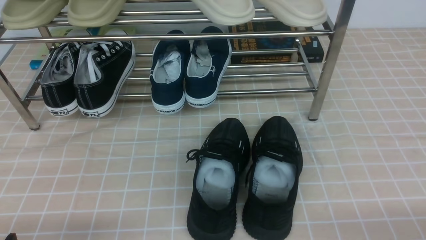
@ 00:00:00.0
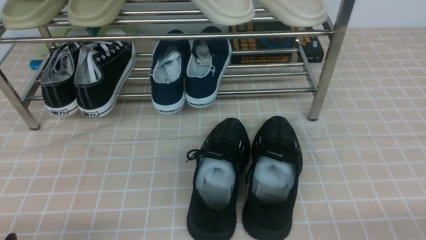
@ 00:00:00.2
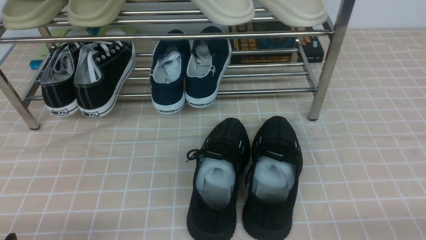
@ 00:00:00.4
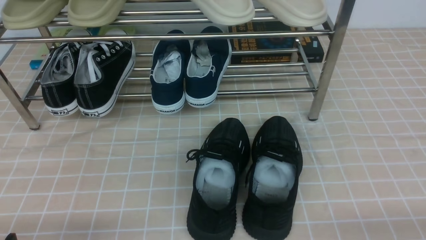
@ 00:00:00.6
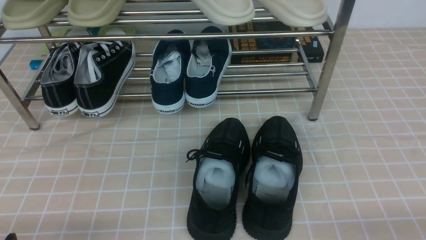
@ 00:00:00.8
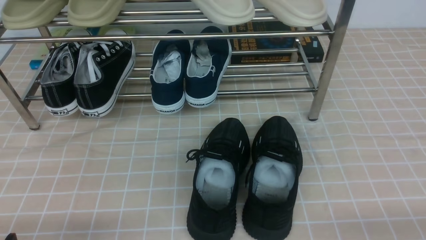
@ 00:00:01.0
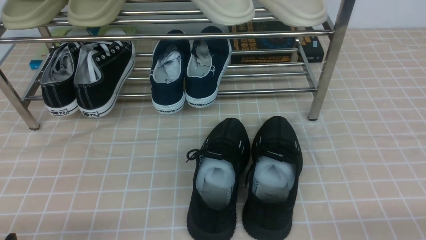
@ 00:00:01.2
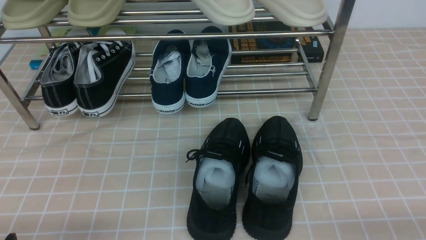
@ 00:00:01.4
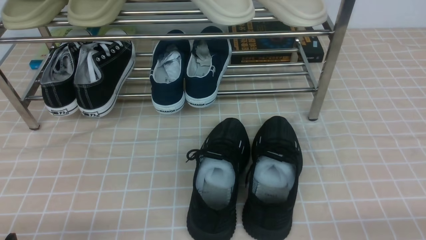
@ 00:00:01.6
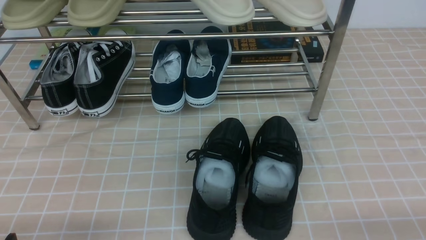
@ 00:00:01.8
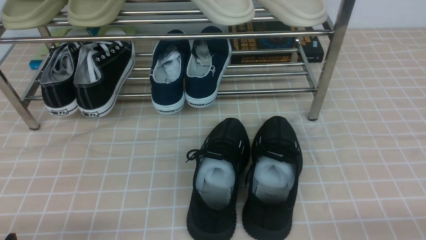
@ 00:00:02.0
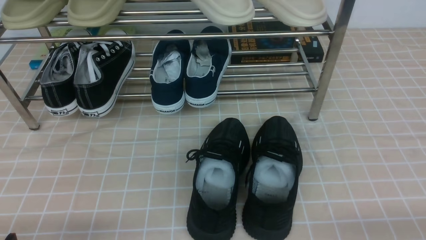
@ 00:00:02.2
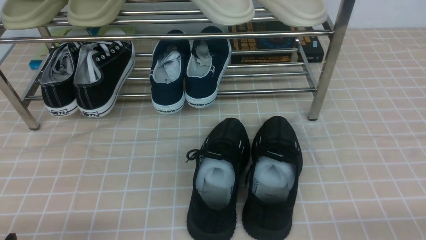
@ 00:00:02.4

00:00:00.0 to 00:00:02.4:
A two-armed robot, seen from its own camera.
00:00:01.2 to 00:00:02.4: The two grippers keep their place.

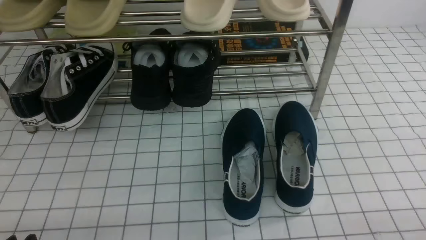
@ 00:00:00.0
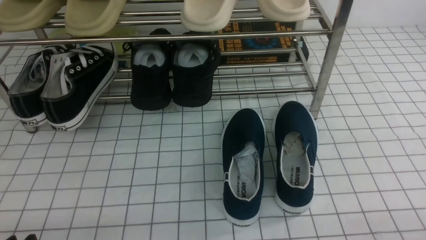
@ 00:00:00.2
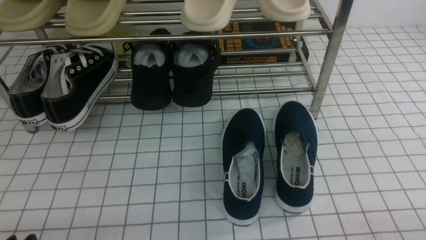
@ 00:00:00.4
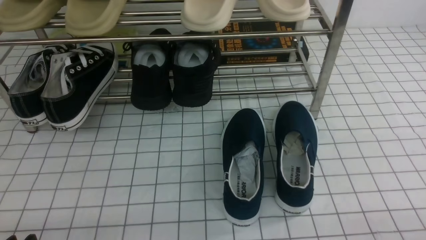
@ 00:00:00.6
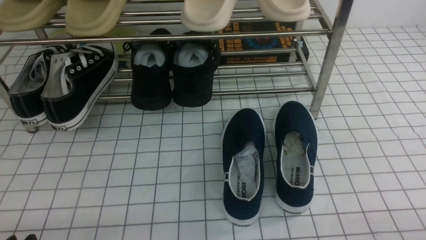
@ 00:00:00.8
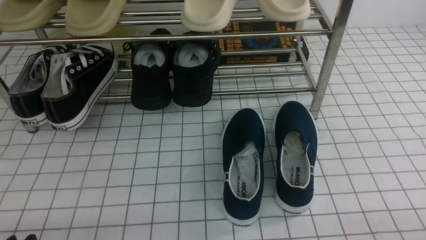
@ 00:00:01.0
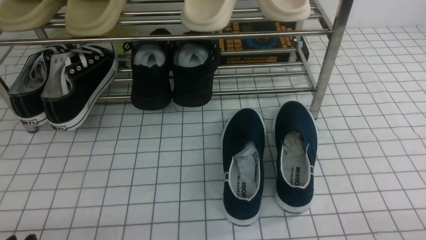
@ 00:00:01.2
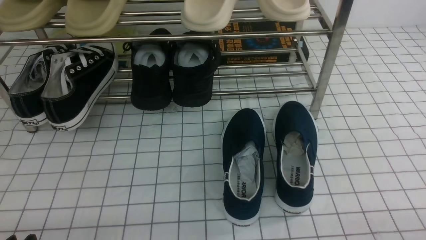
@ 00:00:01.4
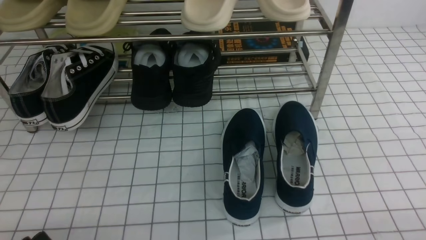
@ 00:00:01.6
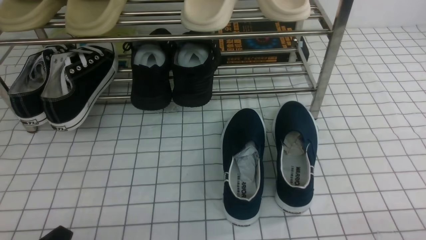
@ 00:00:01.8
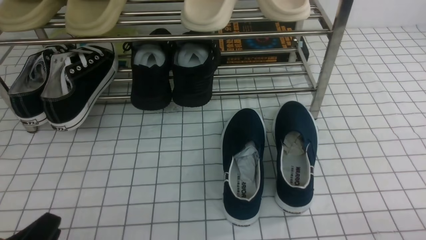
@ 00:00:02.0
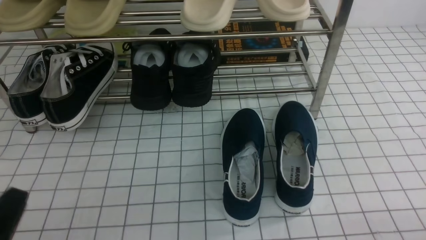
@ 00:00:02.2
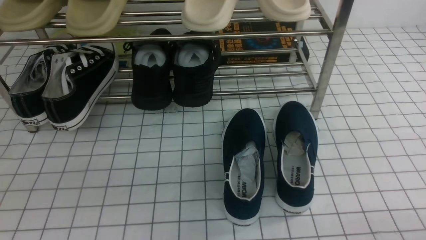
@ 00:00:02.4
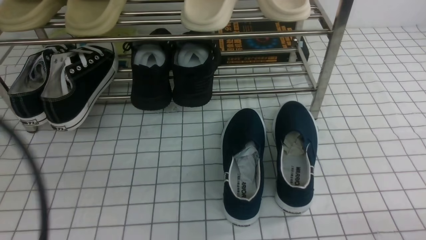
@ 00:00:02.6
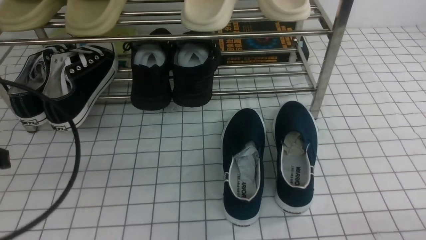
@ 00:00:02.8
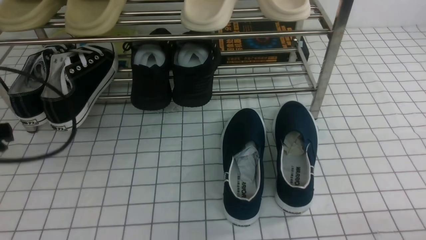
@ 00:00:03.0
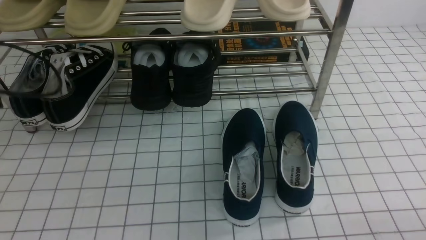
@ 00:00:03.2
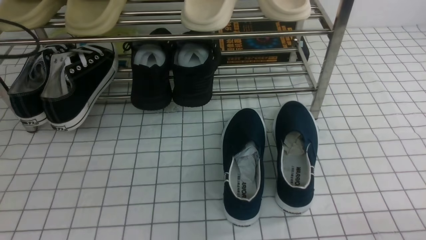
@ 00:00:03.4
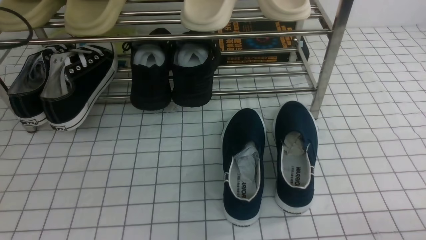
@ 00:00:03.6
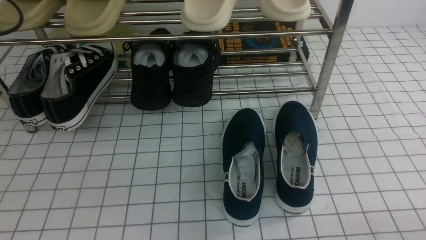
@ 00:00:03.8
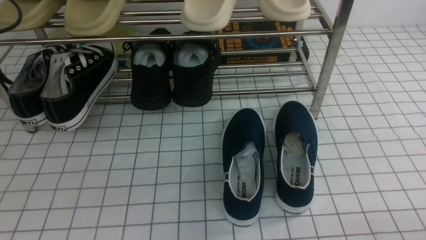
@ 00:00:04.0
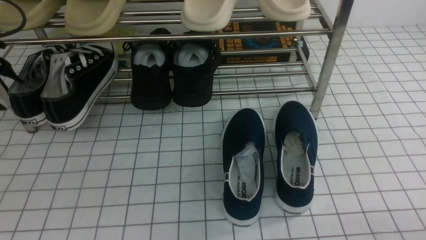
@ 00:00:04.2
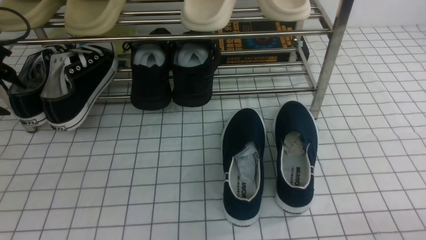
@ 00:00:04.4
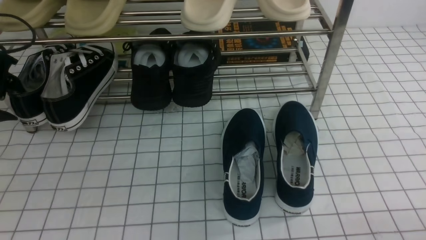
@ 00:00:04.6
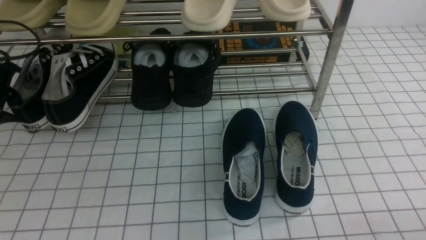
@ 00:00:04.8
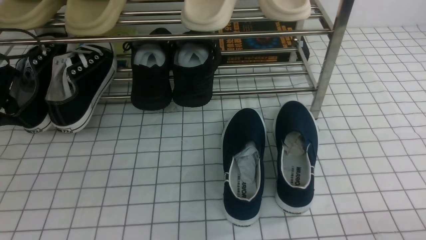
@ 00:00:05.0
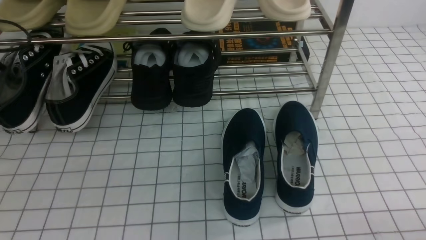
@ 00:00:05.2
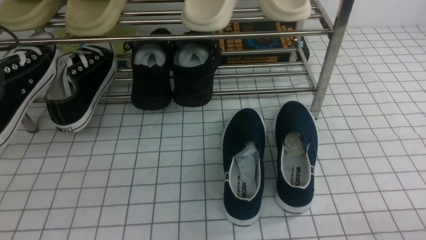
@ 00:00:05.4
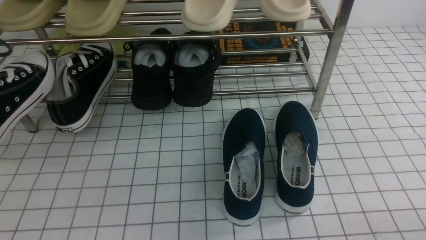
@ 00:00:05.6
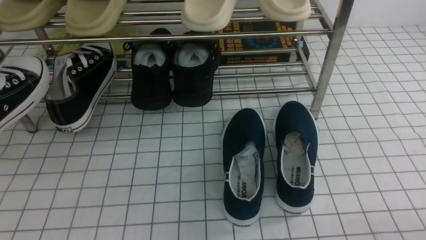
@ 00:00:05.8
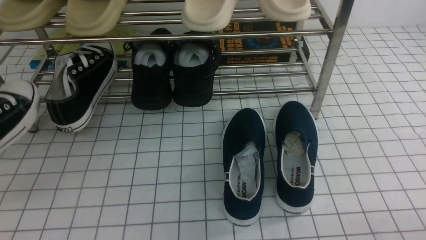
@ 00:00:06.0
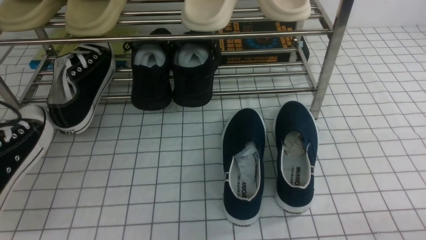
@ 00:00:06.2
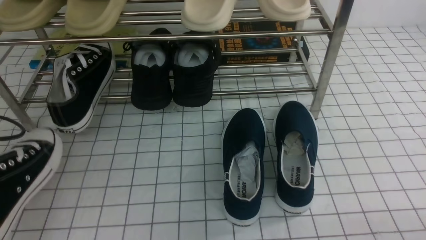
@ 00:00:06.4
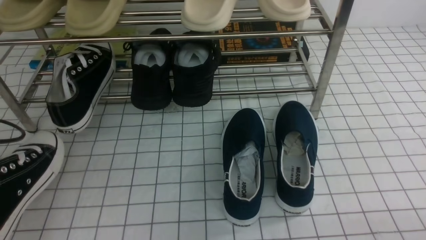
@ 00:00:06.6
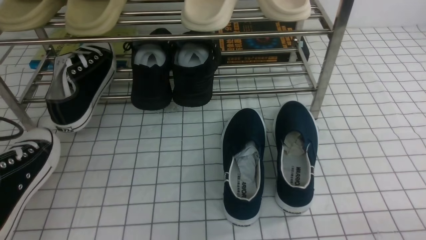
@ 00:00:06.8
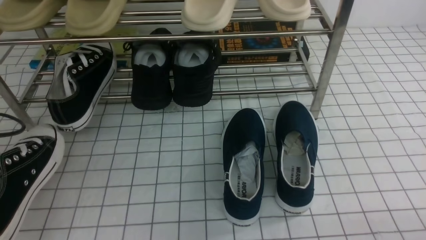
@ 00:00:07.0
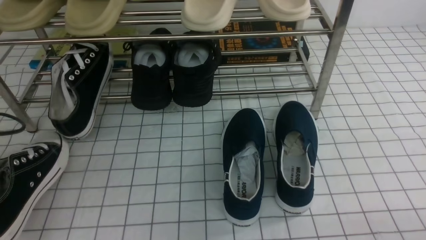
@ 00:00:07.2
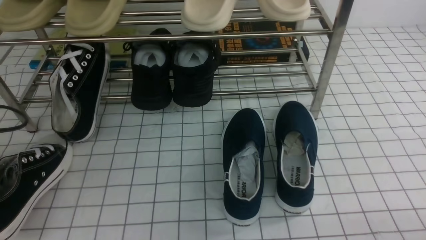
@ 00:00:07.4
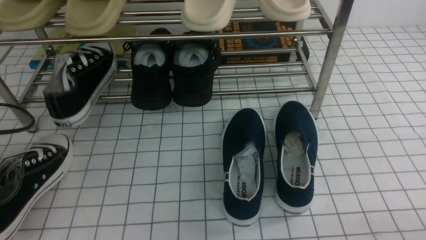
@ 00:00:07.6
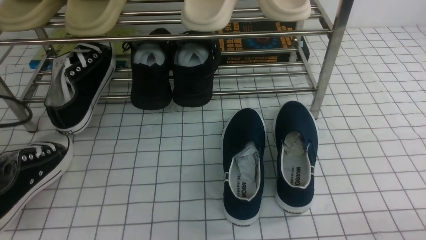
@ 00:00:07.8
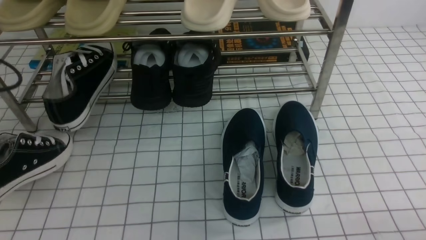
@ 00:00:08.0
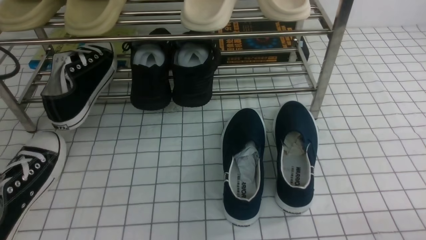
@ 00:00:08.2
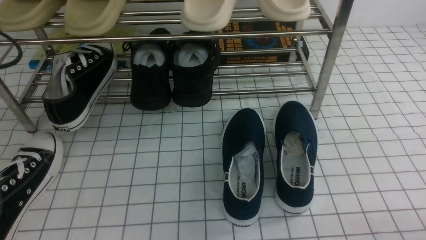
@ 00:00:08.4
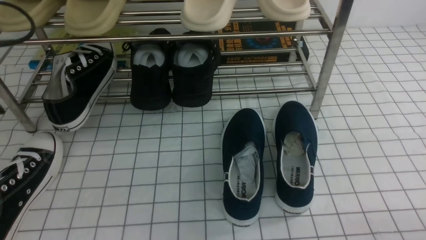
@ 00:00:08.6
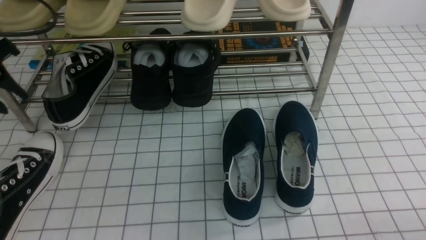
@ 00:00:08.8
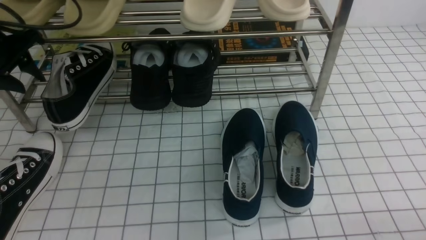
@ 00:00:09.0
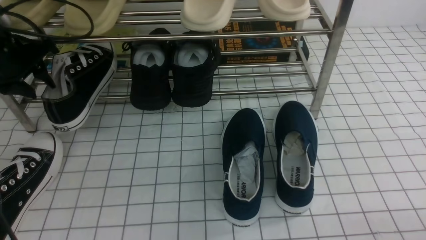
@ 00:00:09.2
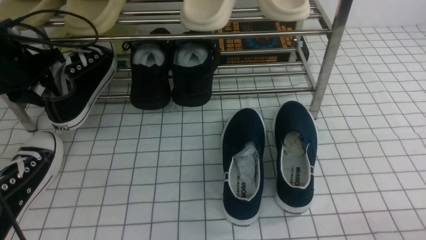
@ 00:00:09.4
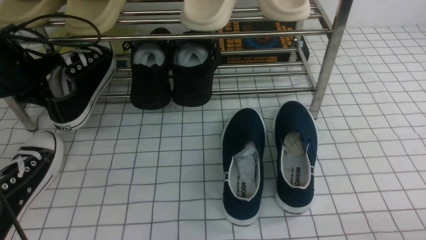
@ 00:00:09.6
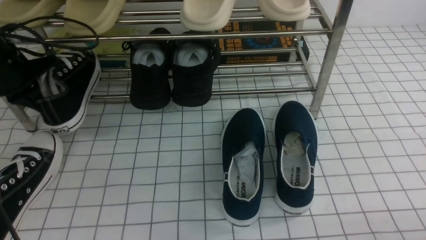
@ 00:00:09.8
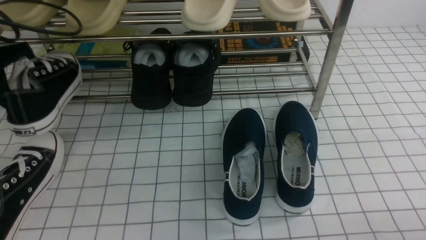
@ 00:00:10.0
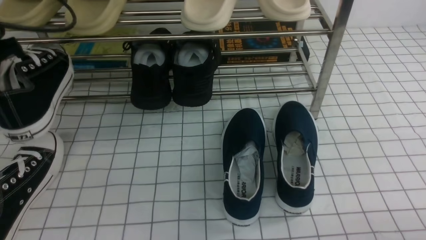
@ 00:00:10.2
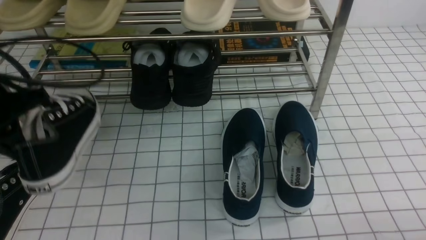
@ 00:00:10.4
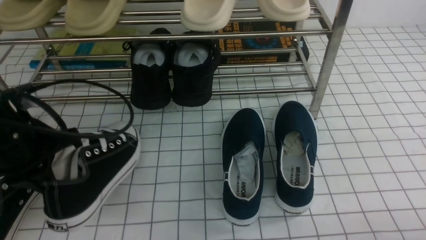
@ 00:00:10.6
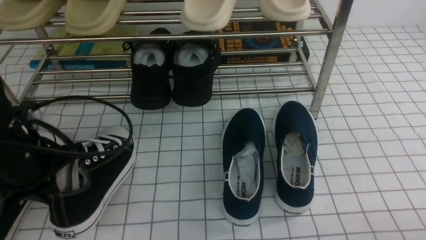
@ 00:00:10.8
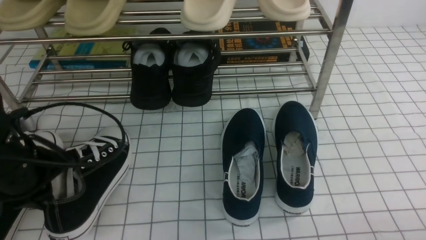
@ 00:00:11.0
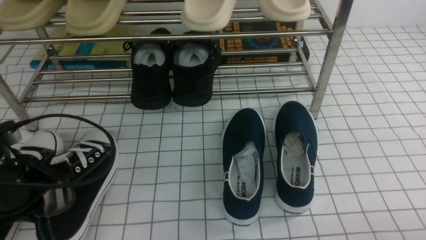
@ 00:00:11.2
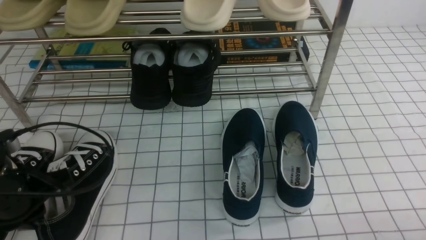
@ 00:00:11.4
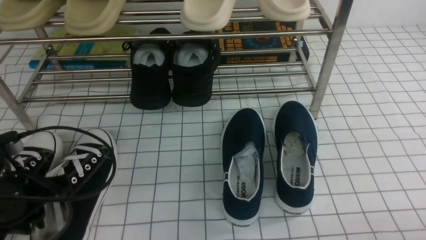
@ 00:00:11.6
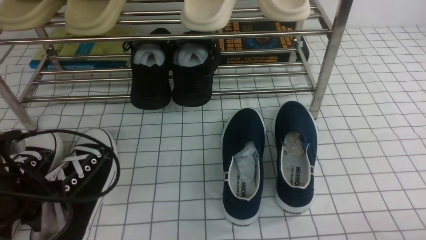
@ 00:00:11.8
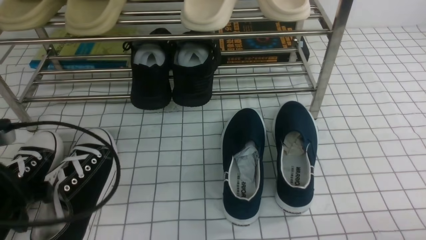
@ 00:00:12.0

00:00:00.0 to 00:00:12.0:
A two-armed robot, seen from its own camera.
Step, 00:00:00.0 to 00:00:04.8: use the left arm to clamp a shoe on the left side of the shoe rack.
Step, 00:00:05.0 to 00:00:08.2: Use your left arm to remove the clamped shoe from the shoe rack and put it down.
Step, 00:00:08.4 to 00:00:09.6: use the left arm to clamp a shoe on the left side of the shoe rack.
00:00:01.6 to 00:00:03.0: The left gripper travels forward and upward by roughly 25 cm, and closes its fingers.
00:00:03.0 to 00:00:04.4: The left gripper shifts about 15 cm forward and to the left, and opens up.
00:00:04.4 to 00:00:06.0: The left gripper is displaced backward by about 15 cm, and closes.
00:00:06.0 to 00:00:07.6: The left gripper is displaced downward by about 5 cm, and opens.
00:00:07.6 to 00:00:09.0: The left gripper shifts about 15 cm forward.
00:00:09.0 to 00:00:10.4: The left gripper moves backward and to the right, roughly 10 cm, and closes up.
00:00:10.4 to 00:00:12.0: The left gripper moves backward, roughly 10 cm, and opens.

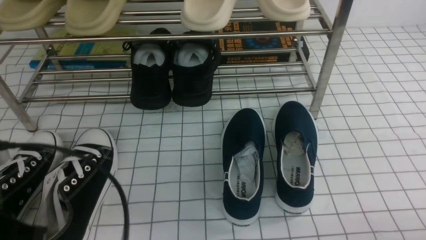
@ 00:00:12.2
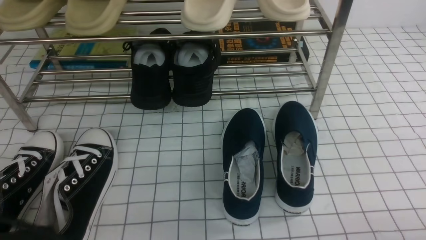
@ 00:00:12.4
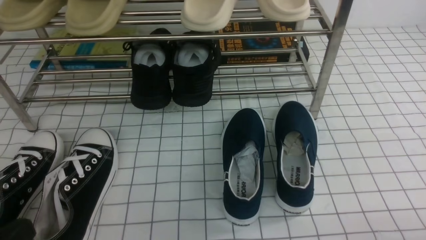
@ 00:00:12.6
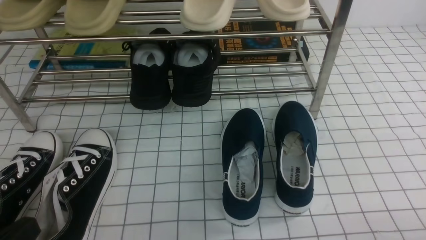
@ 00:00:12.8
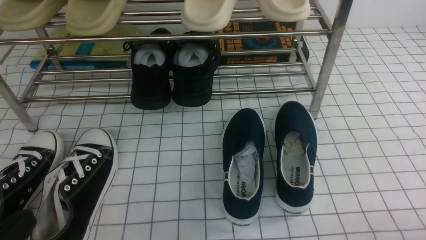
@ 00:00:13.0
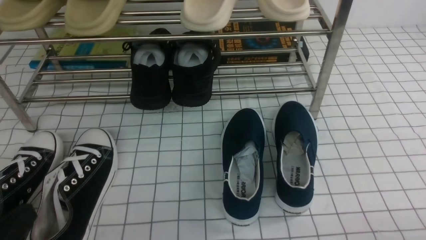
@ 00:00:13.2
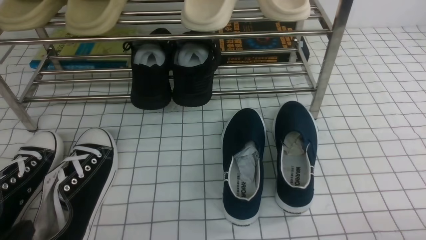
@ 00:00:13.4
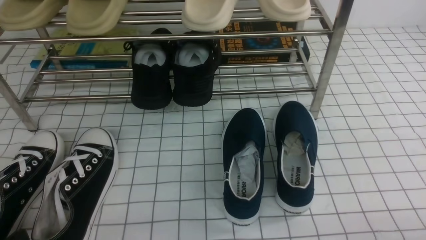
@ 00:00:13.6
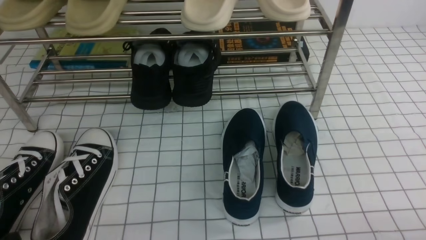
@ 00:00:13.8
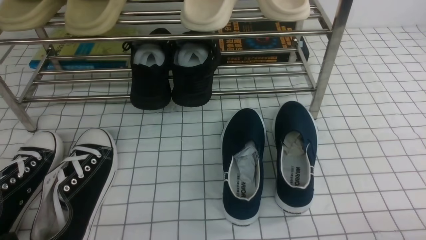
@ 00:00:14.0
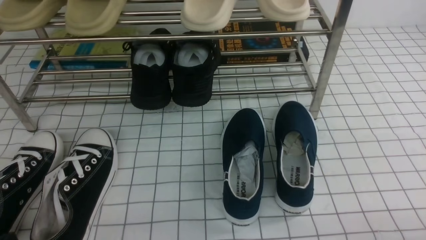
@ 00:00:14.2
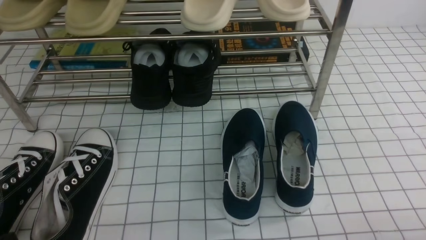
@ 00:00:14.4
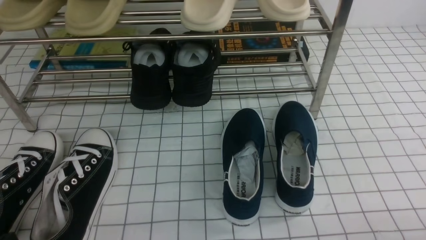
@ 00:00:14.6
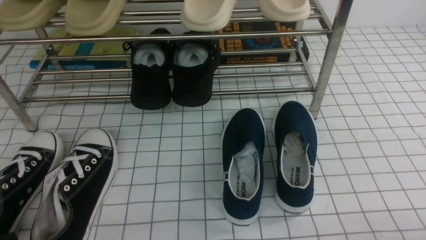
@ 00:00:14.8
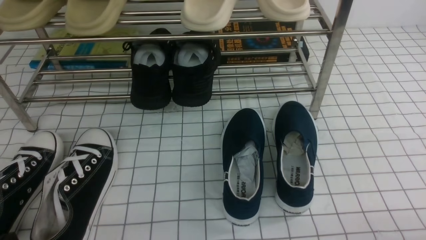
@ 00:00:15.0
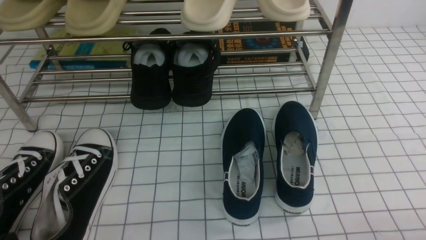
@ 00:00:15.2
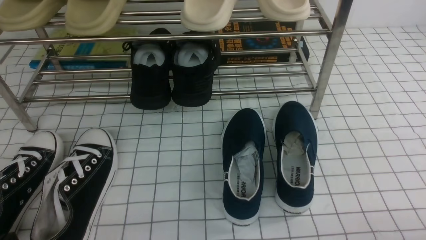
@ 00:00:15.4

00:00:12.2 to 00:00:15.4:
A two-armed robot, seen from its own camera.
00:00:12.2 to 00:00:13.8: The left gripper is displaced downward and backward by roughly 15 cm.
00:00:13.8 to 00:00:15.4: Neither gripper changes place.
